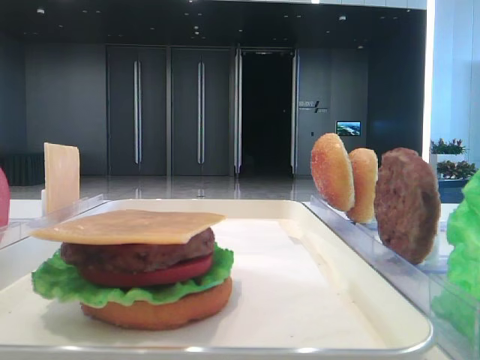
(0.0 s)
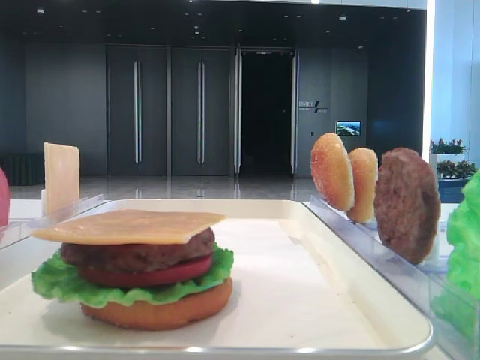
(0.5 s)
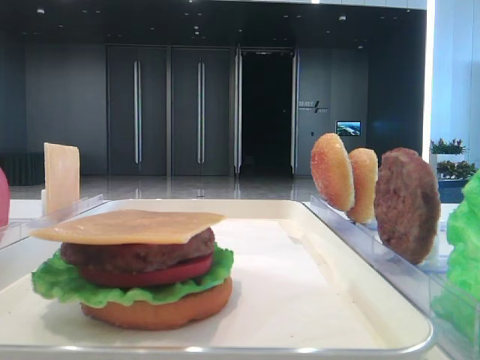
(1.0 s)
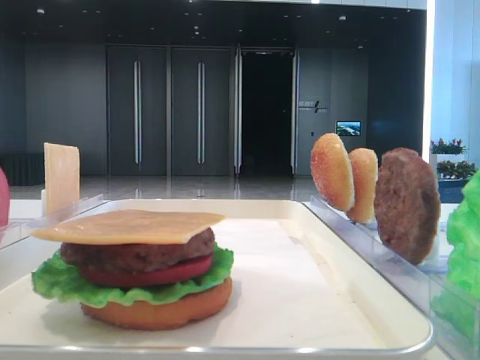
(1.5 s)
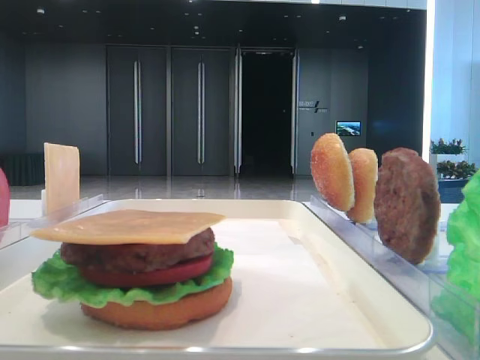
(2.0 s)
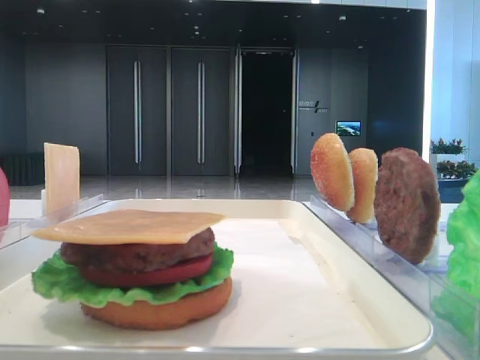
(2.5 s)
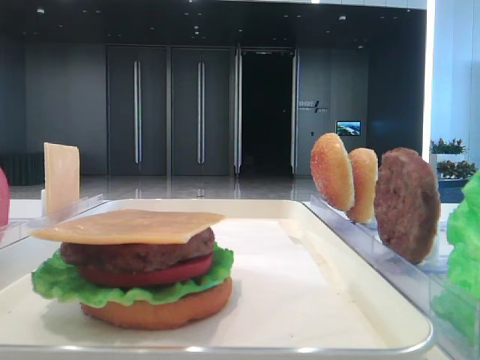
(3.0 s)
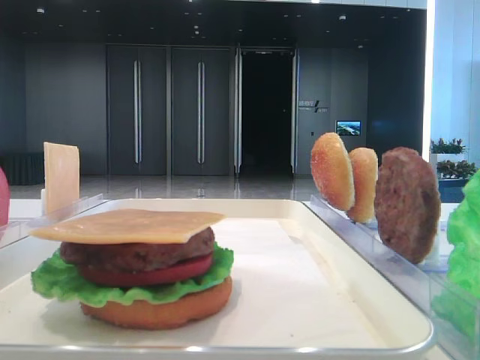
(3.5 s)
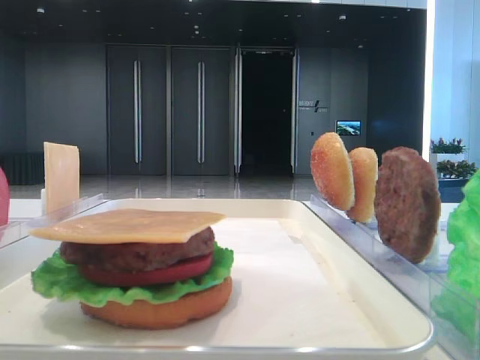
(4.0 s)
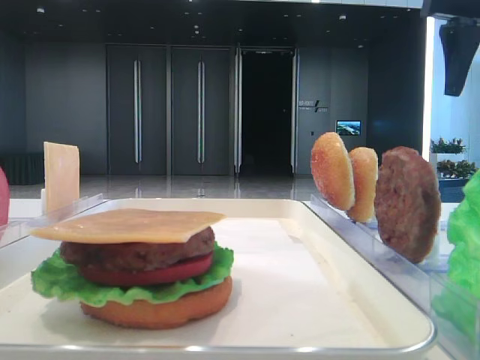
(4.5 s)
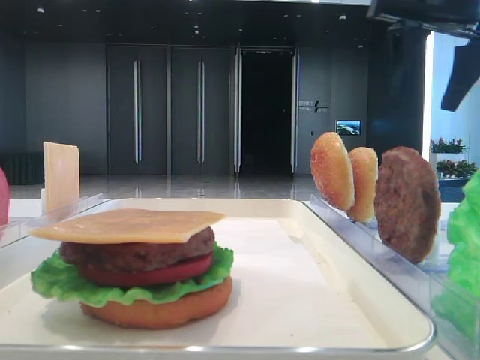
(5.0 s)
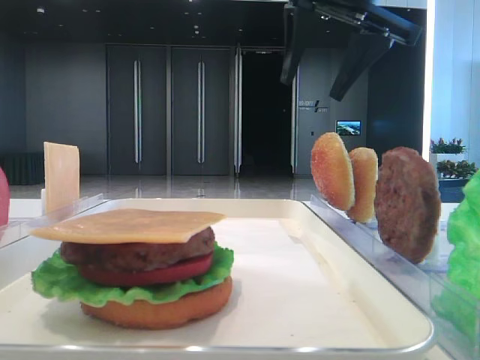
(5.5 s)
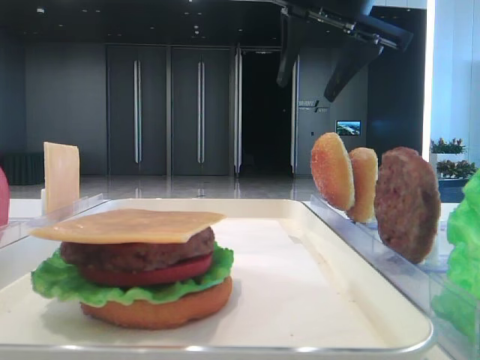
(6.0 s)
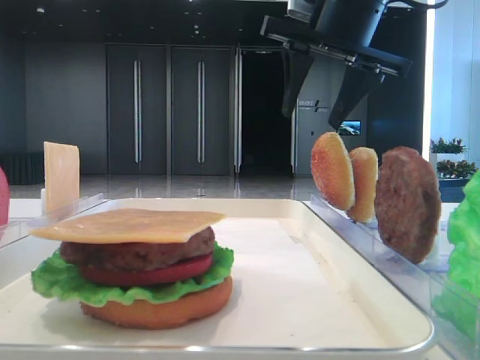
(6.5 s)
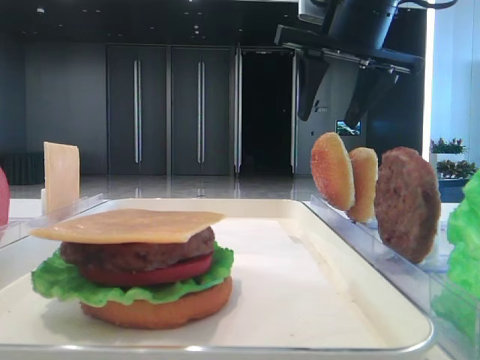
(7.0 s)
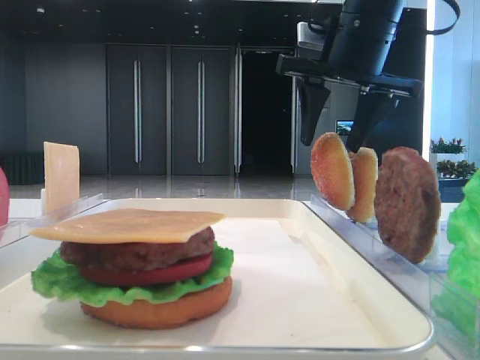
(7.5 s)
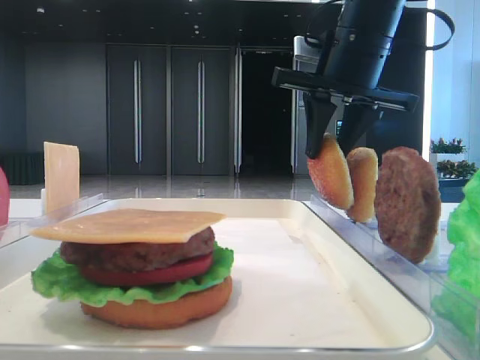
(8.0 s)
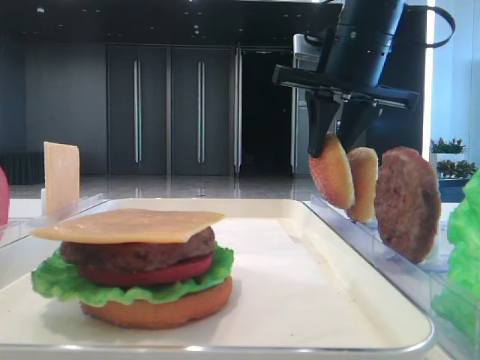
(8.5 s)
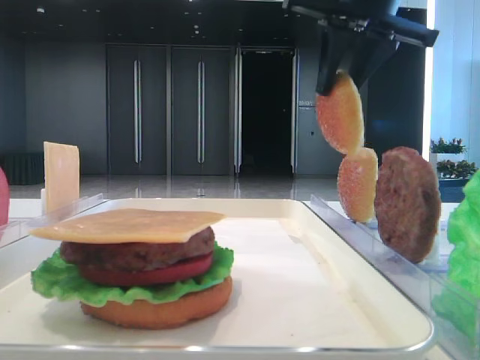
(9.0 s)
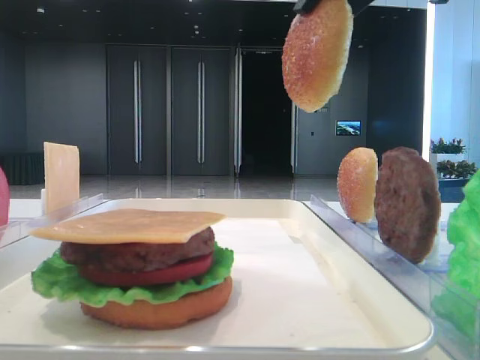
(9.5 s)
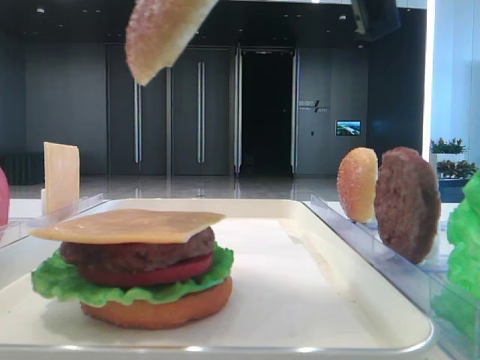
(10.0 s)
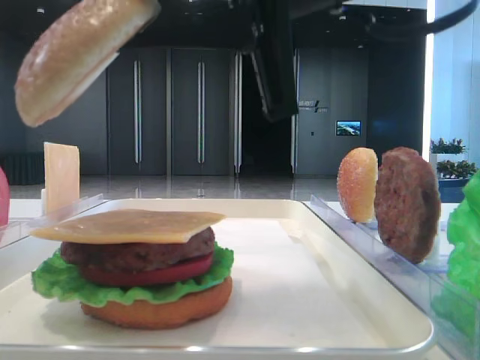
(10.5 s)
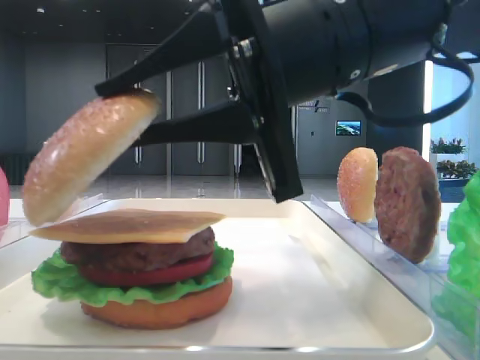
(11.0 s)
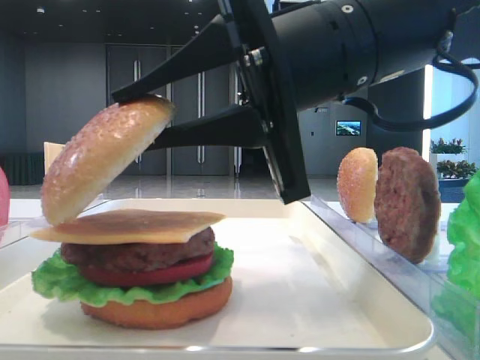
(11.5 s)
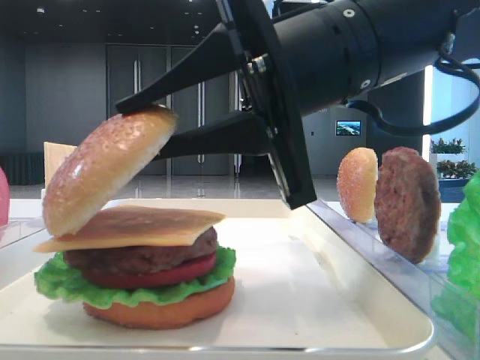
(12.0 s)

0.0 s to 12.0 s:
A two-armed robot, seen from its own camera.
Step, 0.0 to 7.5 s: Pick up the top bread slice with the right hand.
4.0 to 6.0 s: The right gripper shifts some 15 cm to the left.
6.0 to 8.0 s: The right gripper shifts about 5 cm downward, and closes up.
8.0 to 10.0 s: The right gripper moves backward, about 20 cm.
10.0 to 12.0 s: The right gripper moves downward, about 10 cm.

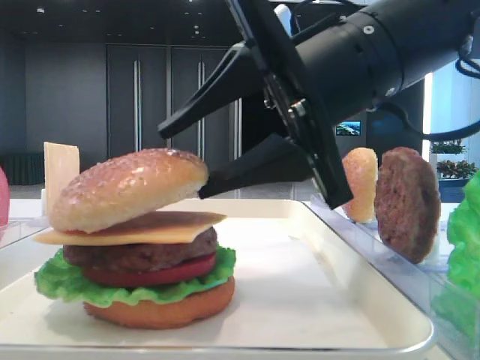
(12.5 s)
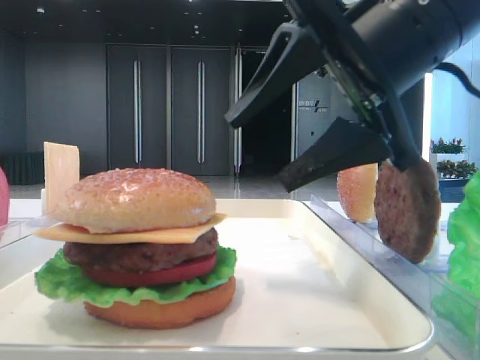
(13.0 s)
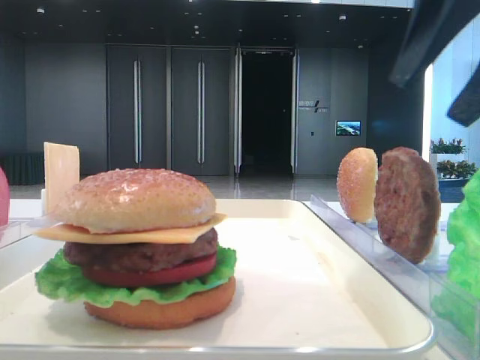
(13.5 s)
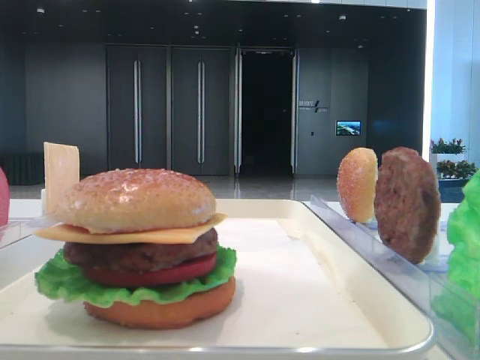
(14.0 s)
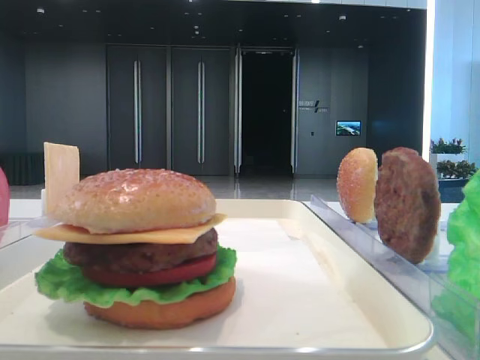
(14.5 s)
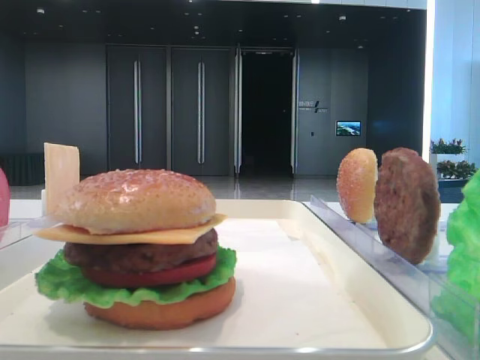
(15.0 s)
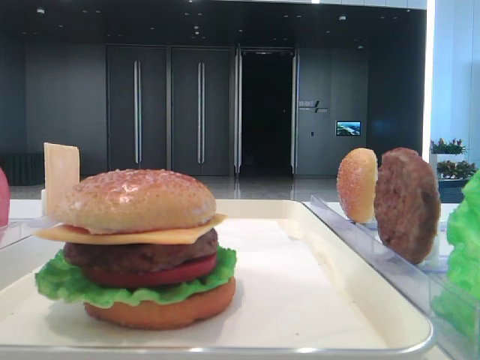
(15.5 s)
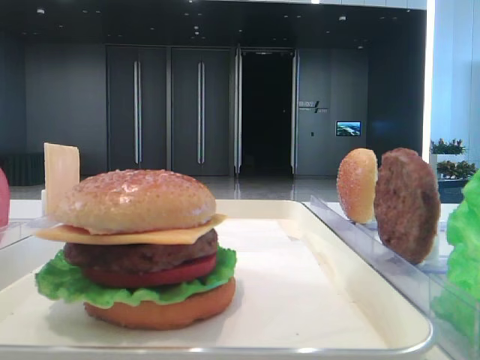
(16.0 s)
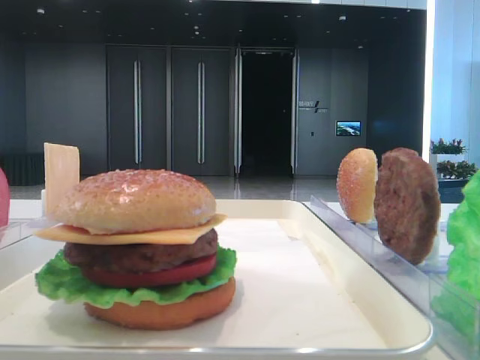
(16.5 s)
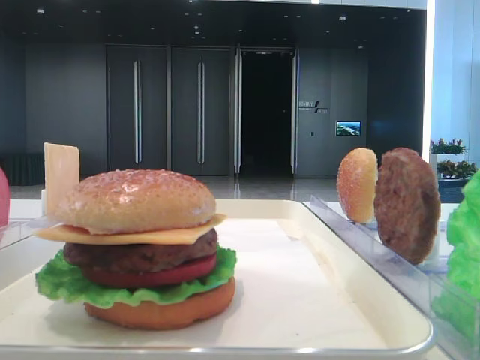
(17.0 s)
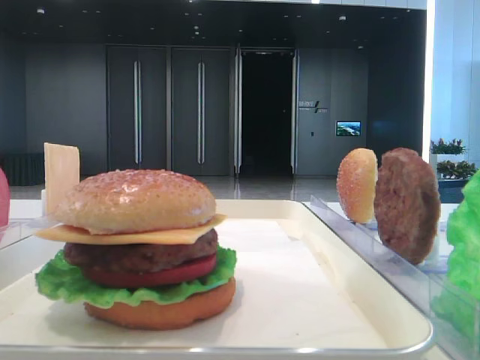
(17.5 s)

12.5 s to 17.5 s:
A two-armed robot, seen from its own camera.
12.5 to 15.0 s: The right gripper shifts about 30 cm to the right, backward and upward, and opens.

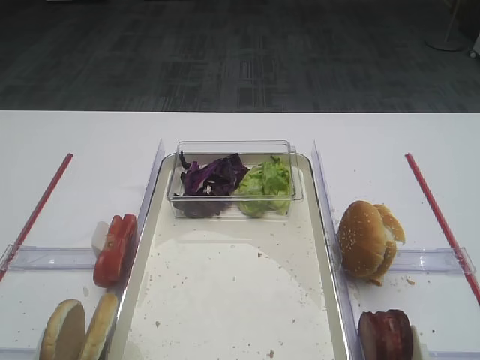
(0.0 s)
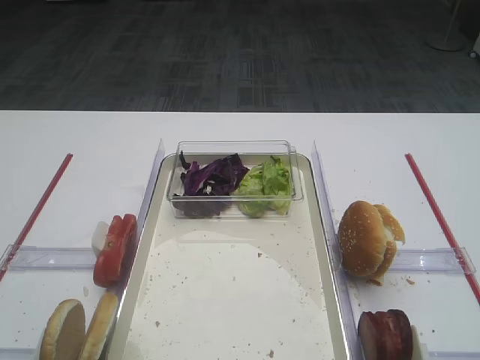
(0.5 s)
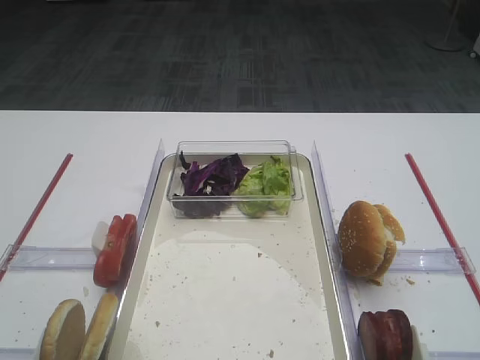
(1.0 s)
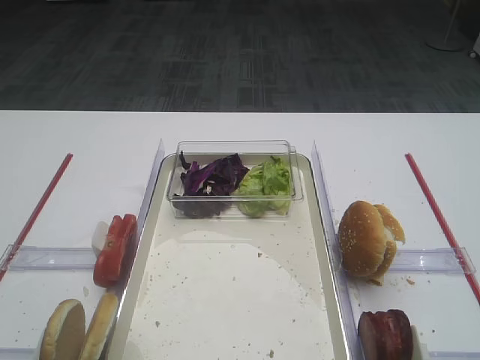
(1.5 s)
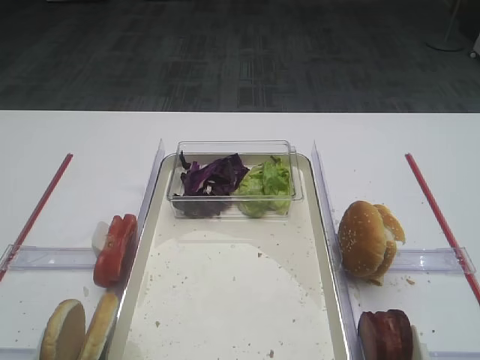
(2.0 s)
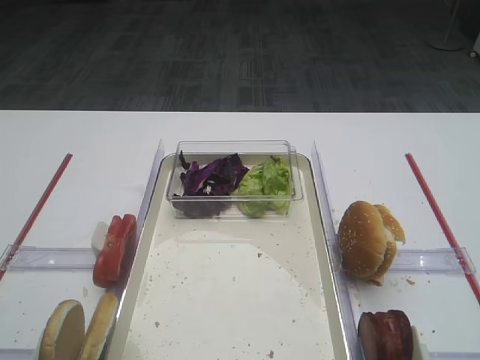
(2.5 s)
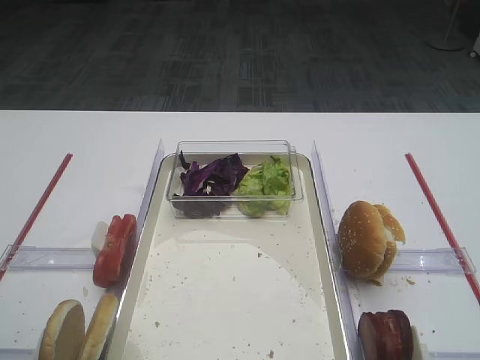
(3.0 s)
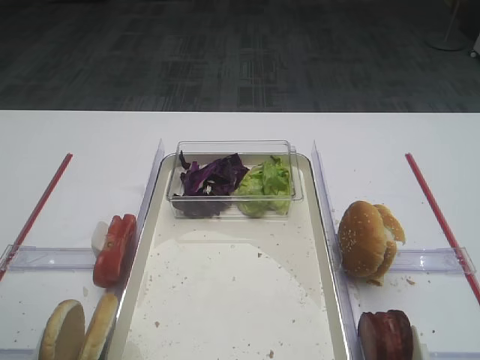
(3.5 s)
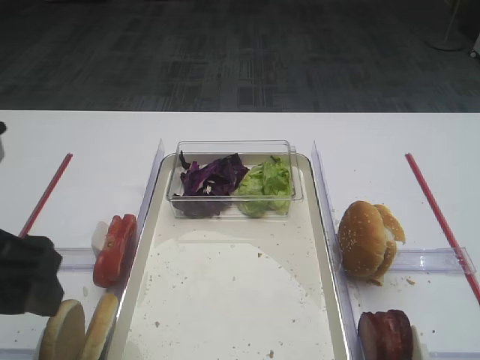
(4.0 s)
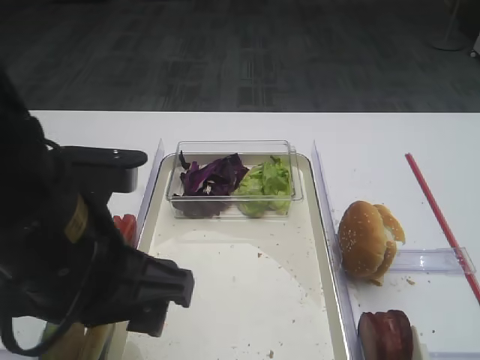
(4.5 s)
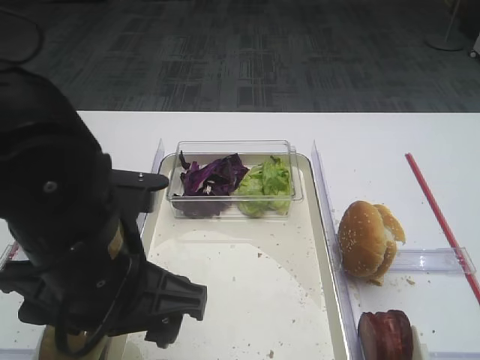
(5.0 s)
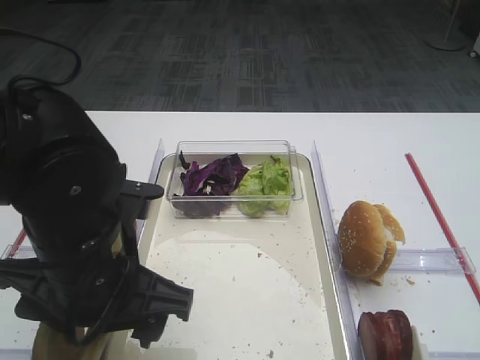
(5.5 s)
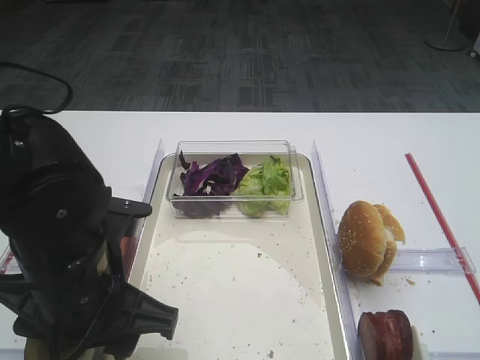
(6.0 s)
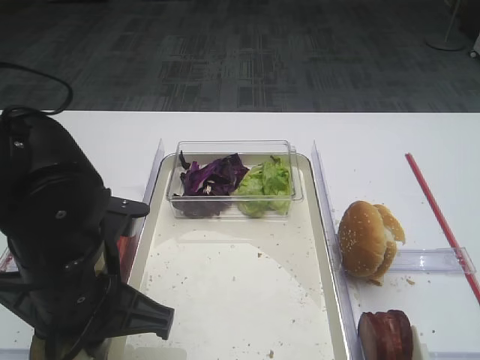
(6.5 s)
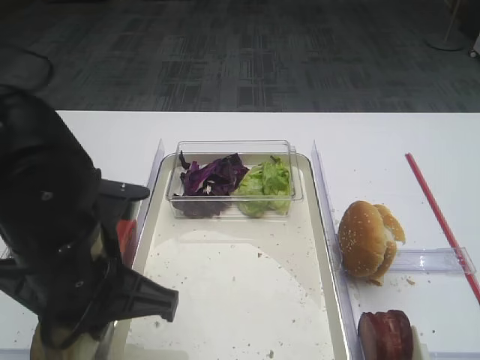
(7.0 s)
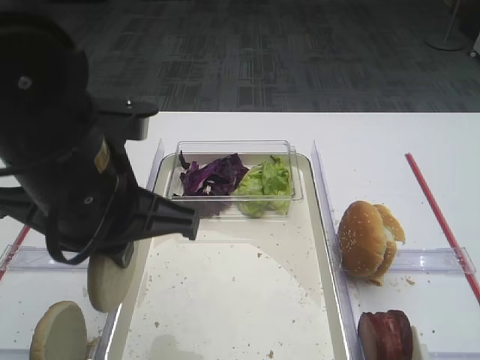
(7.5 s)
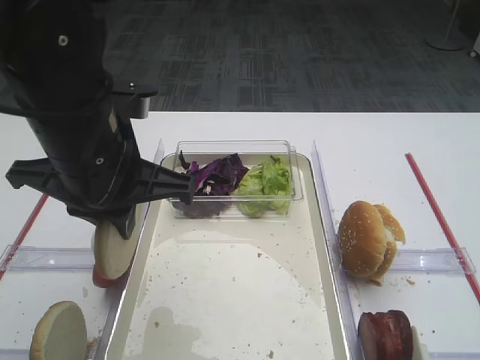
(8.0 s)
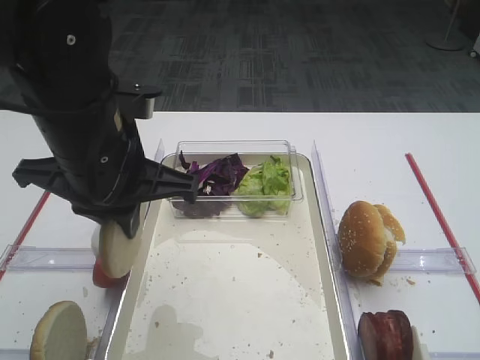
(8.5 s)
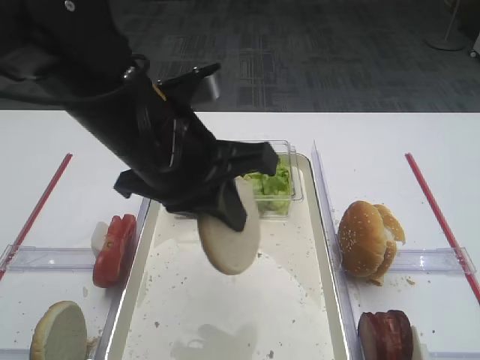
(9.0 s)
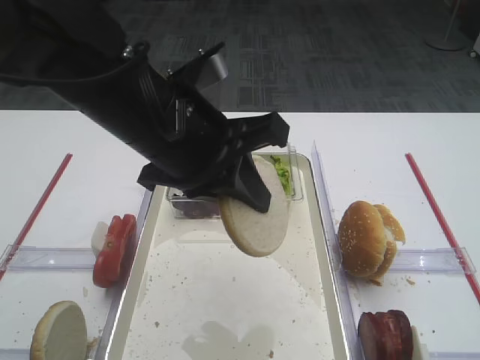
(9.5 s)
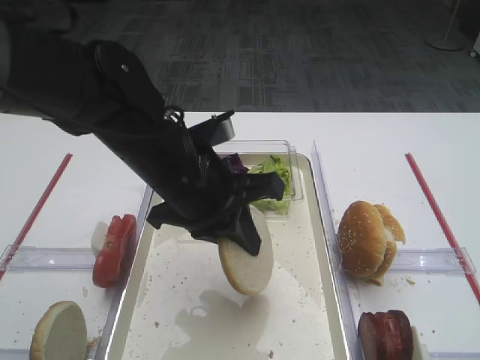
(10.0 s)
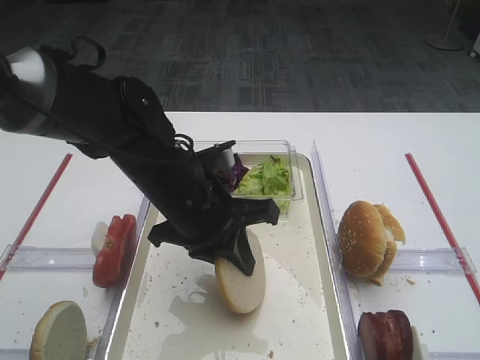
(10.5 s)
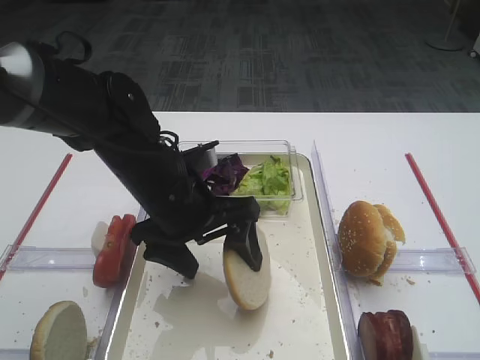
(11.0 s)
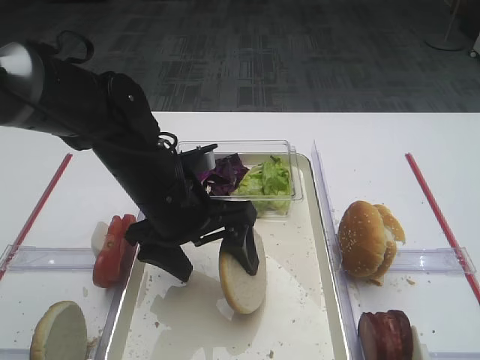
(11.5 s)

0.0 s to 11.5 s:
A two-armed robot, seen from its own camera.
Step, 0.0 to 7.0 s: Pick up the bread slice with the left gripper.
2.0 to 4.0 s: The left gripper moves forward and to the right, roughly 15 cm.
4.0 to 6.0 s: The left gripper moves to the right and downward, about 10 cm.
6.0 to 7.5 s: The left gripper is displaced upward by roughly 10 cm, and closes up.
7.5 to 9.5 s: The left gripper changes place by about 5 cm.
9.5 to 11.5 s: The left gripper heads downward, covering about 10 cm, and opens.
